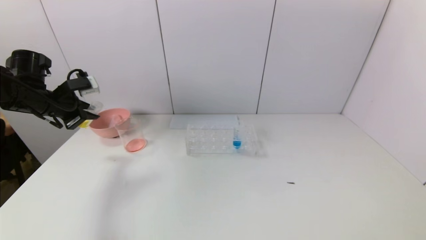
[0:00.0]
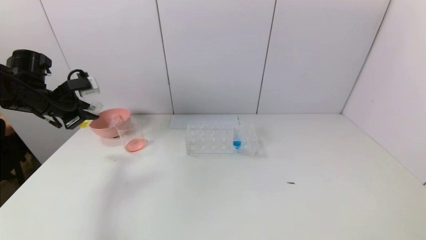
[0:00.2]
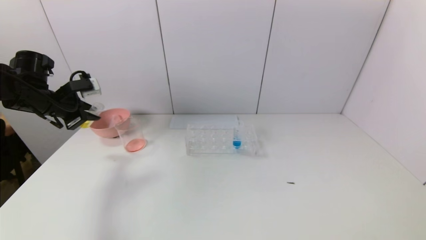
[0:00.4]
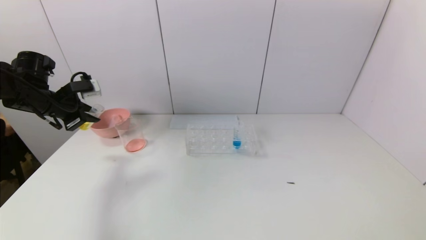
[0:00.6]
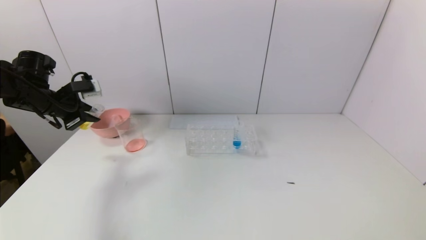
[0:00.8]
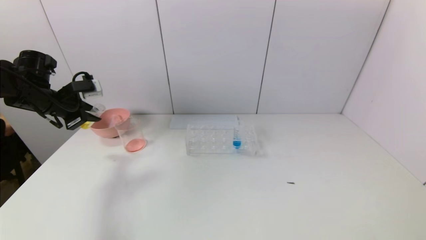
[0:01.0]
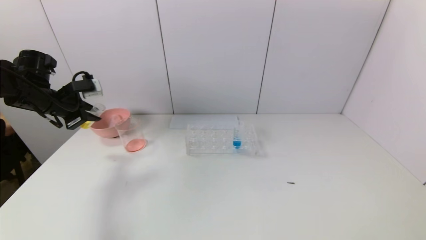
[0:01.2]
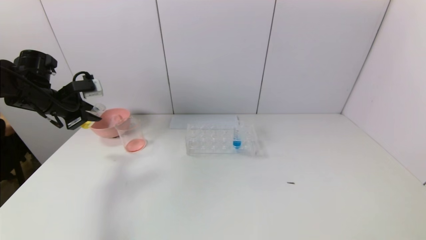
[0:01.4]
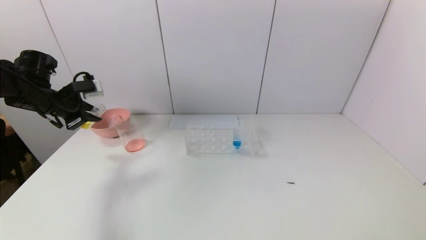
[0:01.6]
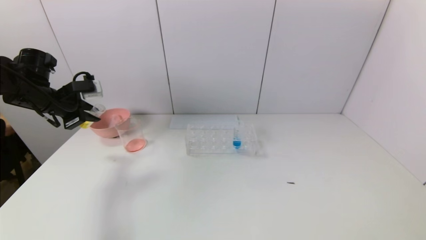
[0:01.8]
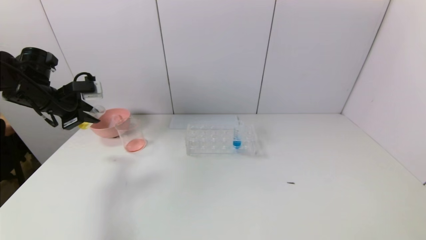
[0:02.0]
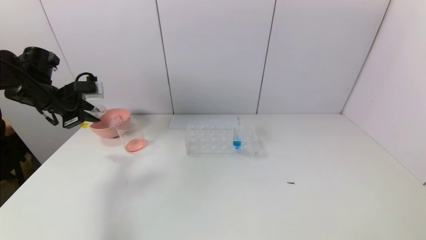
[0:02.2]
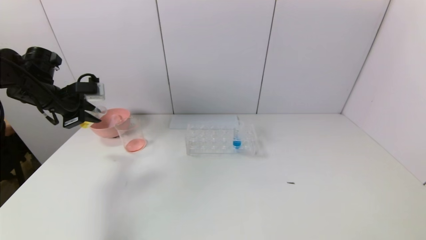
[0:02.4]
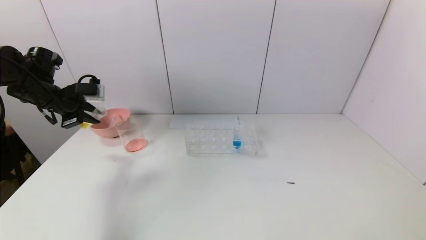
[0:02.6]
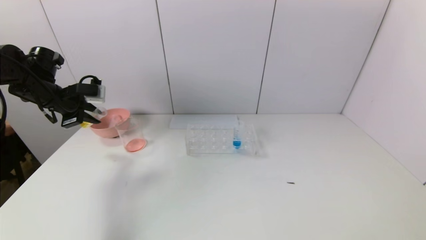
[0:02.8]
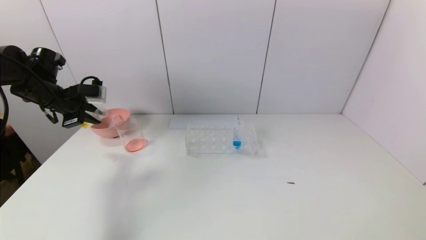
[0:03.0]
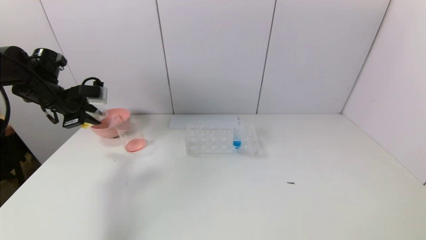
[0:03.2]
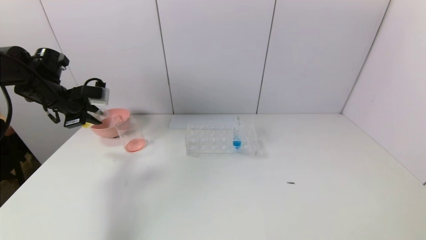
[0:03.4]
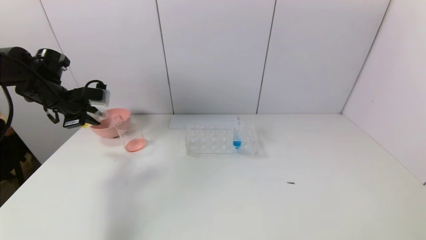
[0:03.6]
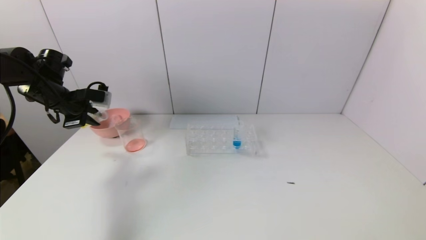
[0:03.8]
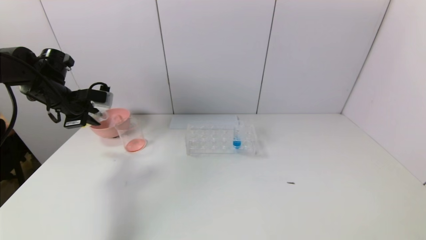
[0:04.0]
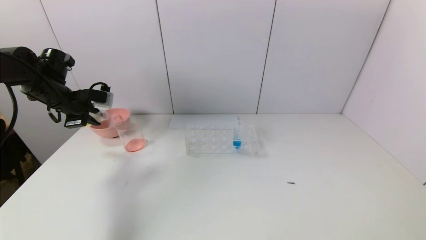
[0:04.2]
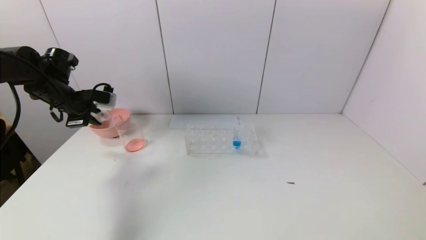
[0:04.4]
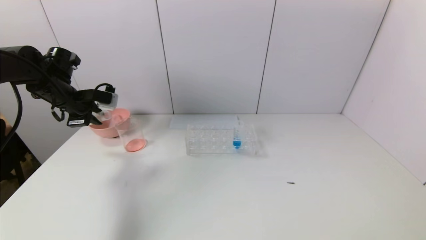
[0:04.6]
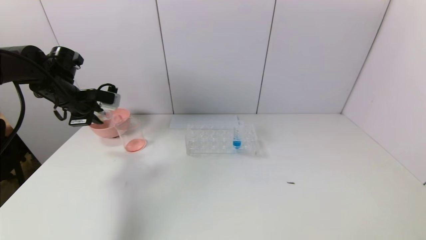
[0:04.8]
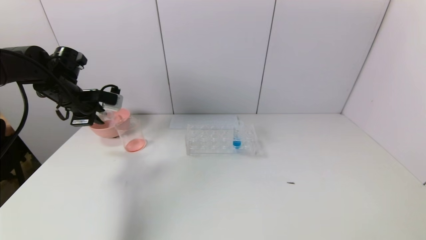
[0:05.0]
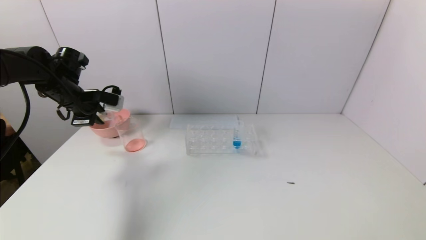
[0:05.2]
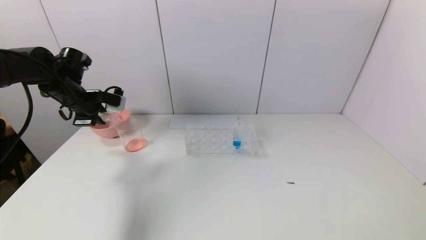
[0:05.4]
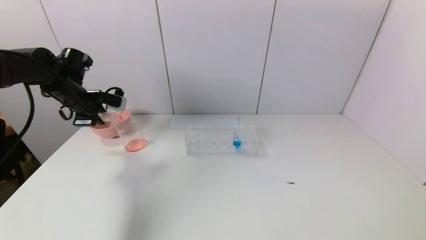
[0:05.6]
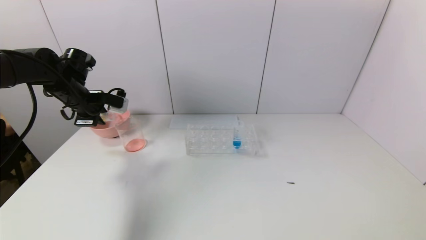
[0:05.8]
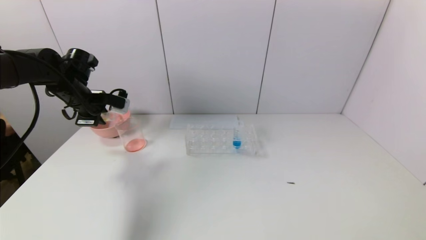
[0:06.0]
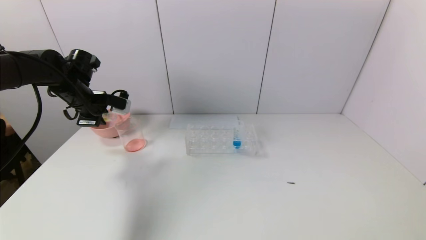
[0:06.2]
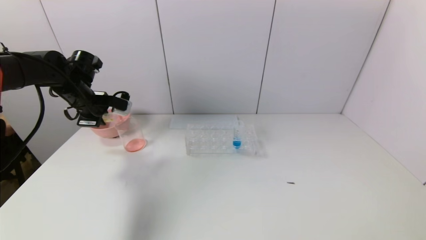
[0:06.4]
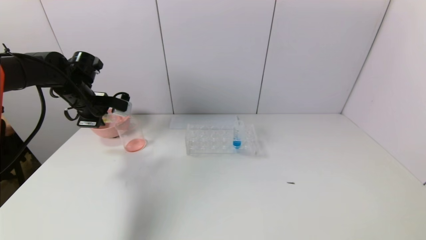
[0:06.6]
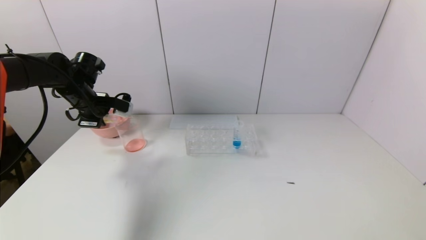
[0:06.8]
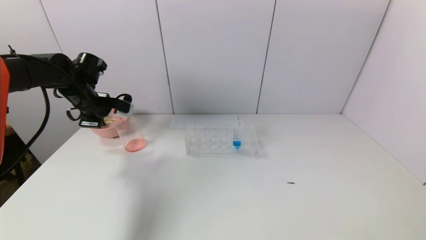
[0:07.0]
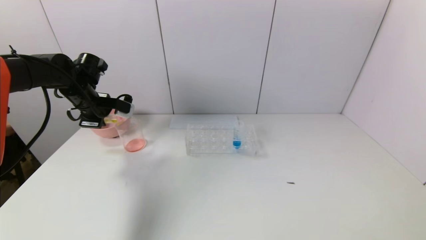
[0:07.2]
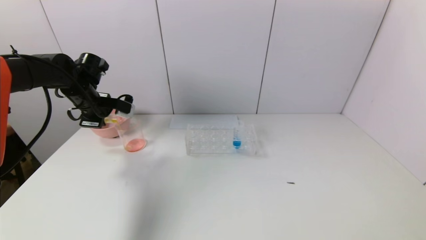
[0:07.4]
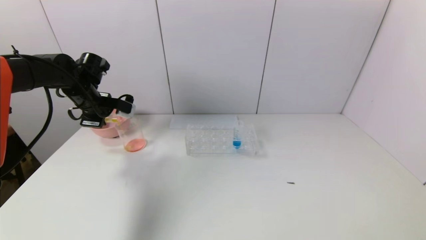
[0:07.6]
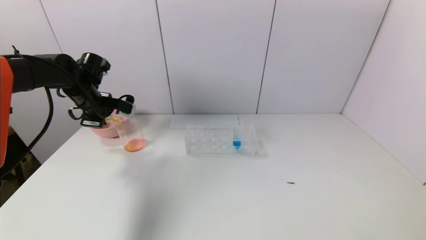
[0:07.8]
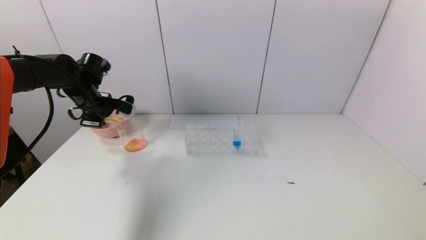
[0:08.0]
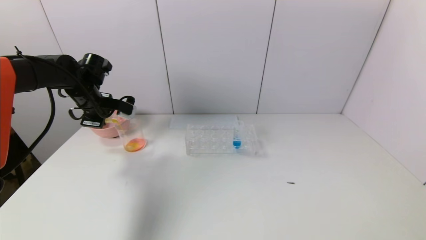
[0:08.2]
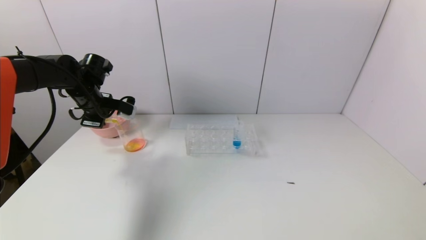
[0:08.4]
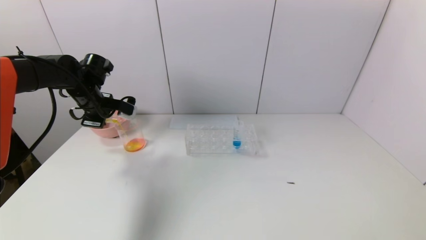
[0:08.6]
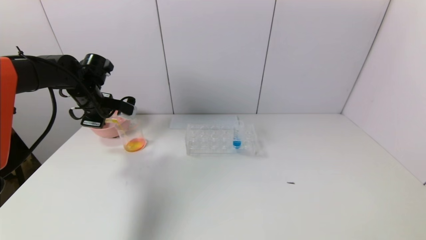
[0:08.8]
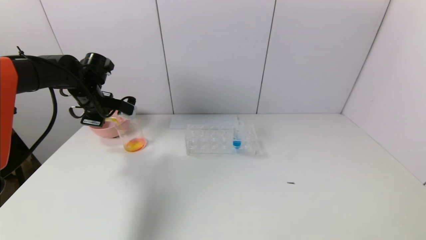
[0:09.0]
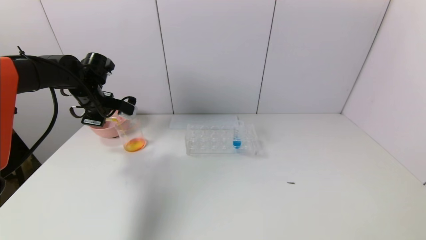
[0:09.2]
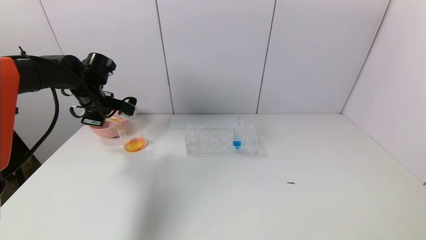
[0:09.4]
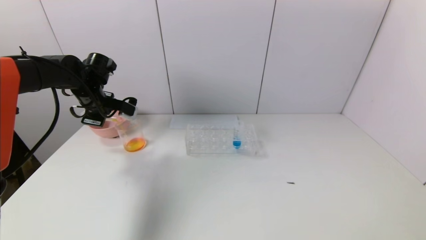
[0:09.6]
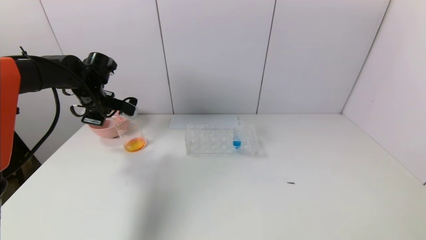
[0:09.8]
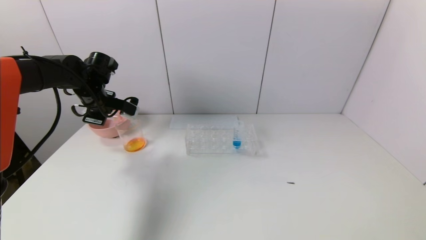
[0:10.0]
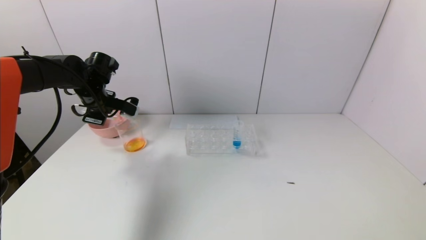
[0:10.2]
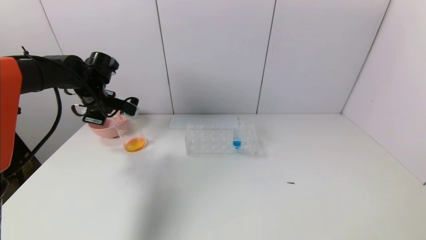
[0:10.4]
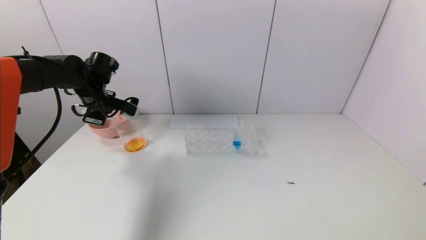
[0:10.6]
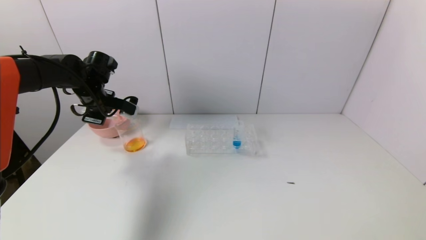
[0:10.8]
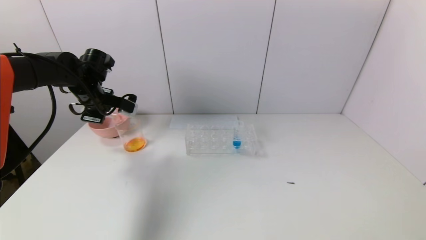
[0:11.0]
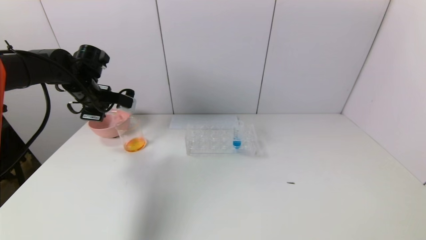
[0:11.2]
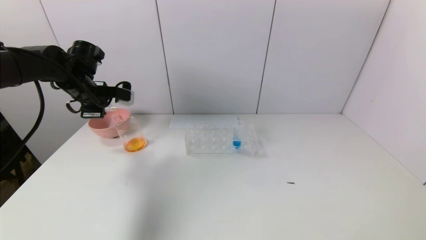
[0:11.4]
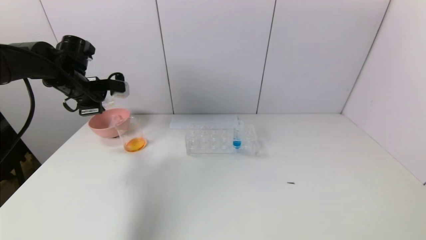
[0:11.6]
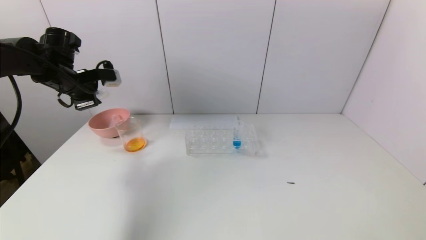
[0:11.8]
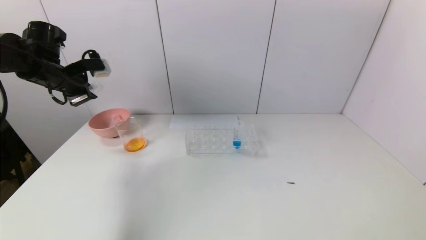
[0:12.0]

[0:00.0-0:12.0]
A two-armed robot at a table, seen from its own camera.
Task of the whole recording: pick up the test tube with yellow pigment and the test tube with red pigment by grippers and pour them into the beaker.
Step, 0:00.0 to 0:11.0: Pour the yellow reagent into the graduated cylinder with the left gripper.
0:00.0 to 0:01.6: The grippers stay close to where they were, moving slightly.
0:01.6 to 0:03.0: The grippers make only small movements.
0:03.0 to 0:04.4: The grippers make only small movements.
0:04.4 to 0:07.6: There are only small adjustments of the grippers.
0:07.6 to 0:09.0: There are only small adjustments of the grippers.
0:09.0 to 0:10.4: The two grippers keep their place.
0:10.4 to 0:12.0: The left gripper travels upward and to the left by about 10 cm.

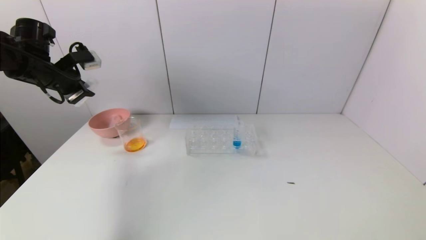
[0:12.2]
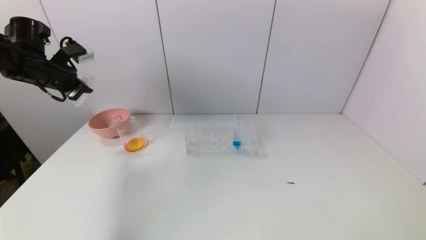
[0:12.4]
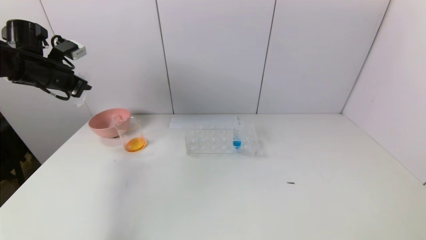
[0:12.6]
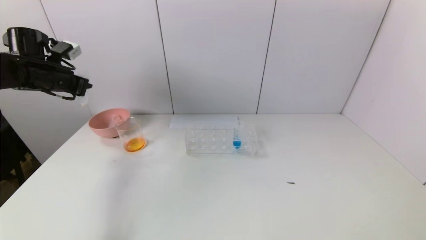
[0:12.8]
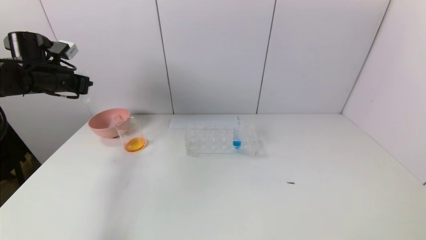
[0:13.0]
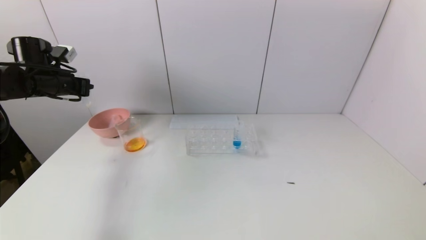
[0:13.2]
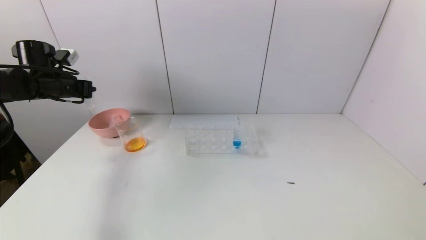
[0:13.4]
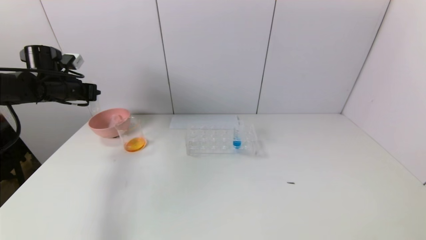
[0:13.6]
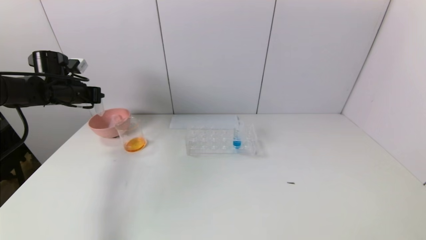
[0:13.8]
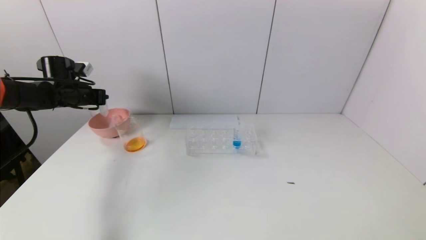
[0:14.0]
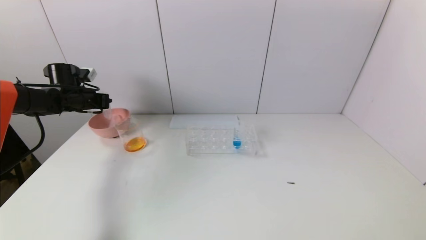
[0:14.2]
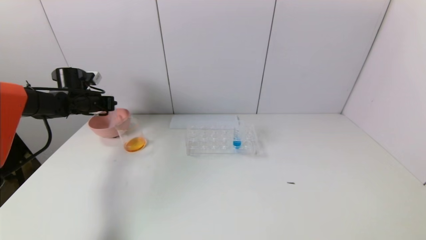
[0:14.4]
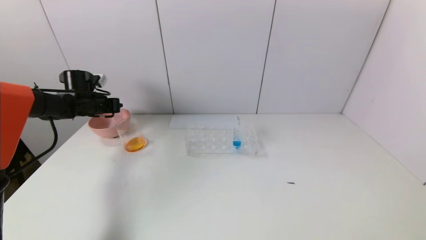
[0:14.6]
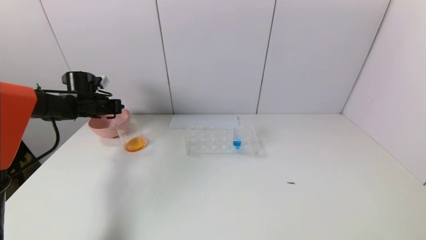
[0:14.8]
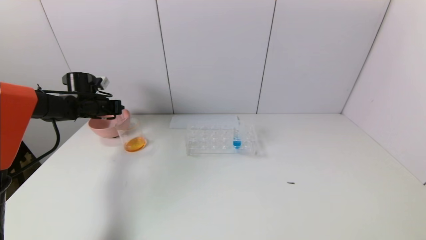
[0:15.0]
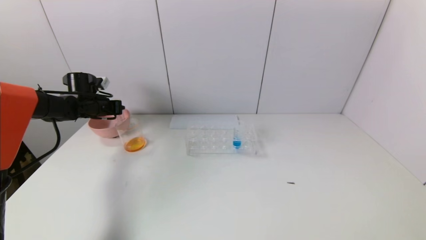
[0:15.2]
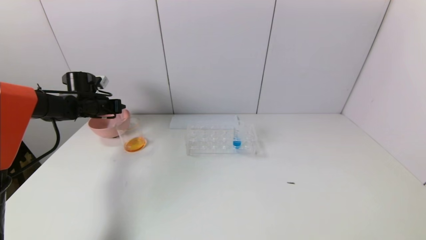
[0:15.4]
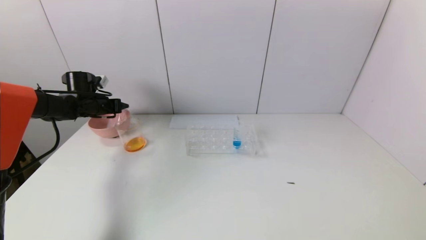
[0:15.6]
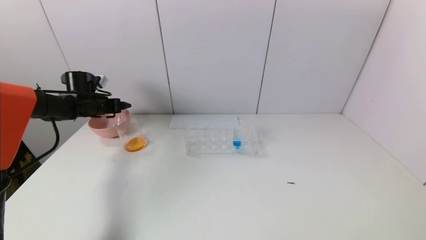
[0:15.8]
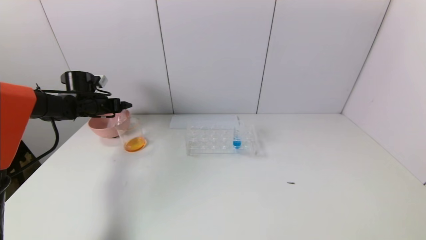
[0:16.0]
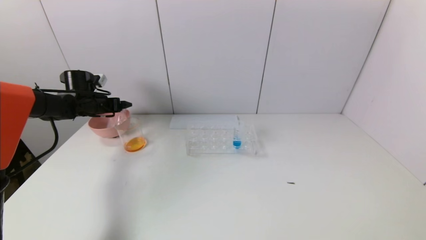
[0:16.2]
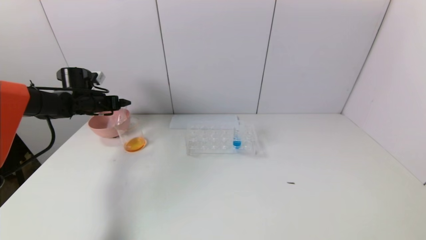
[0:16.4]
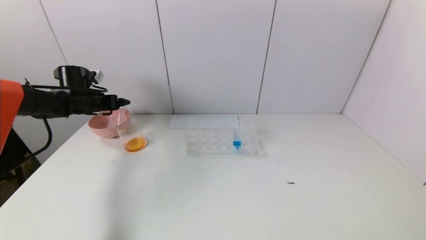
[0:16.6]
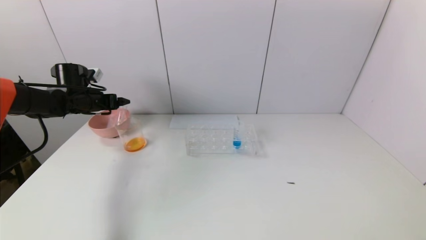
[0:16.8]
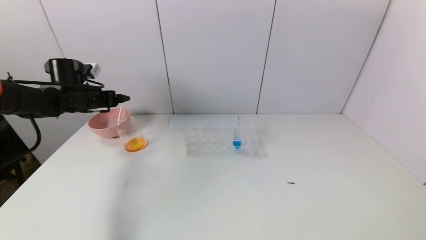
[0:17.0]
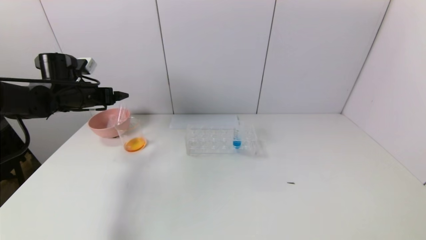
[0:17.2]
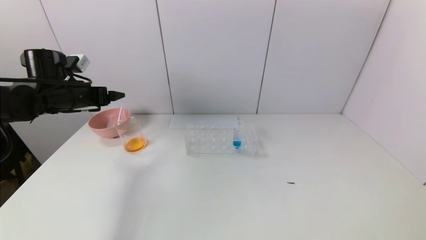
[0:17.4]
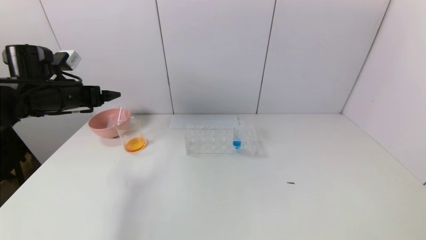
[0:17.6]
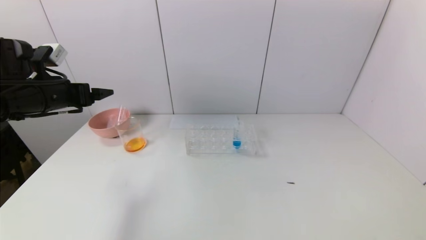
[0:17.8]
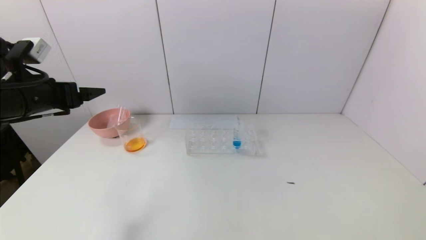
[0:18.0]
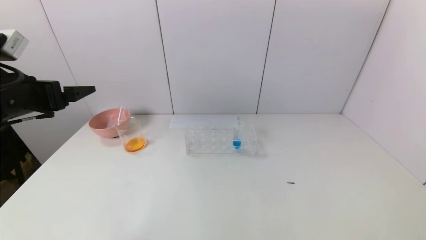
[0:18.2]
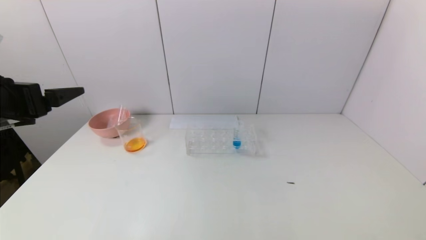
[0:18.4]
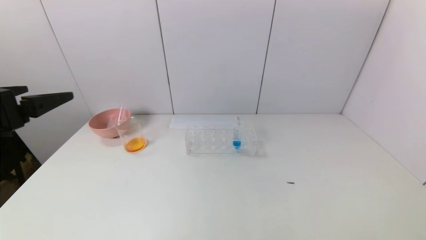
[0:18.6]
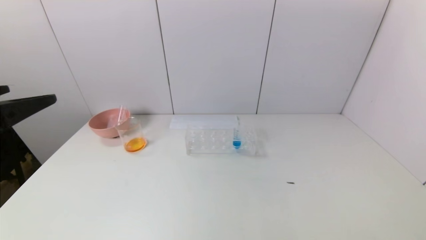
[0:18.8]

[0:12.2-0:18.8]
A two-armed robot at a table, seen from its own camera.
Task of the whole recording: pick up the test tube with yellow pigment and the test tube with red pigment by grippers and pour them into the beaker.
Step, 0:12.2 to 0:15.6: Place the test tube into the pink bowl with the left gripper.
0:12.2 to 0:13.8: The left gripper is displaced downward by some 5 cm.
0:13.8 to 0:15.4: The left gripper heads downward, covering some 5 cm.
0:15.4 to 0:17.2: The left gripper is displaced backward and upward by roughly 10 cm, and opens up.
0:17.2 to 0:18.8: The left gripper goes about 30 cm backward.
